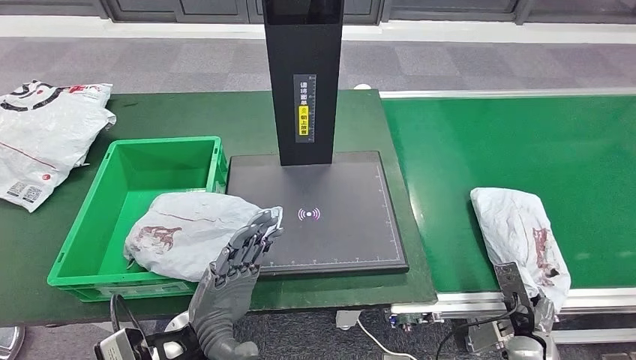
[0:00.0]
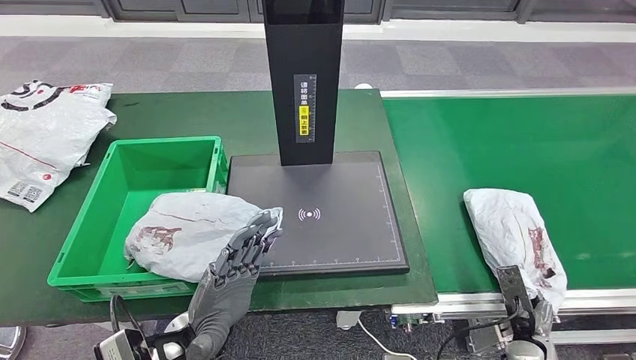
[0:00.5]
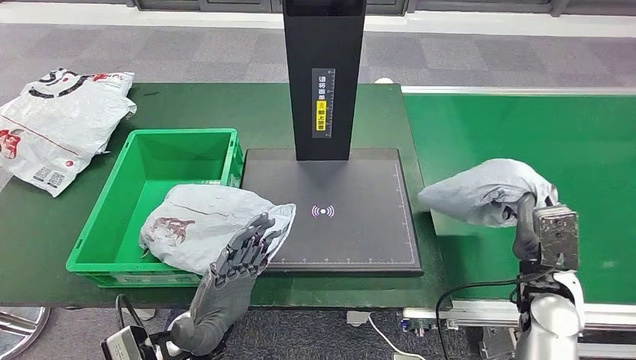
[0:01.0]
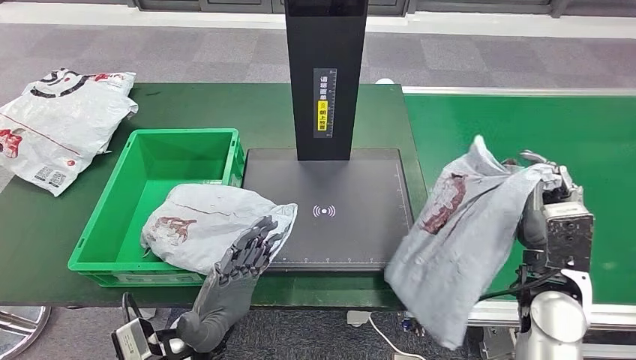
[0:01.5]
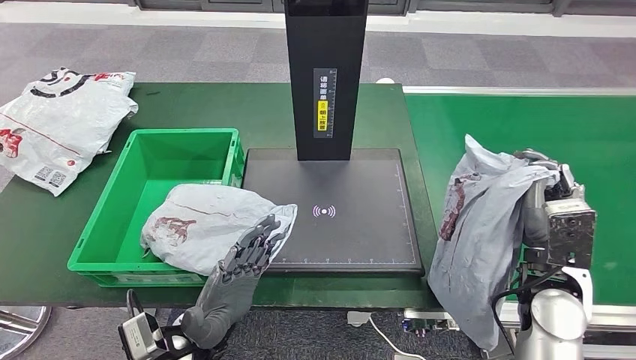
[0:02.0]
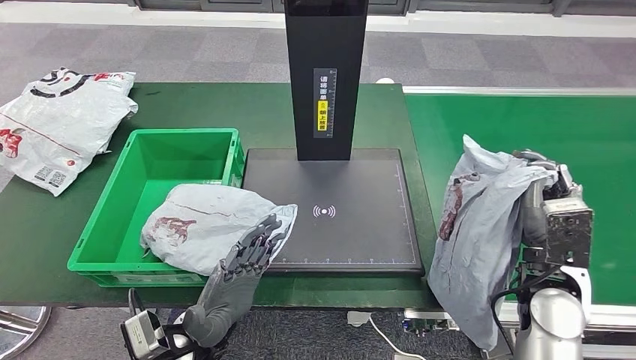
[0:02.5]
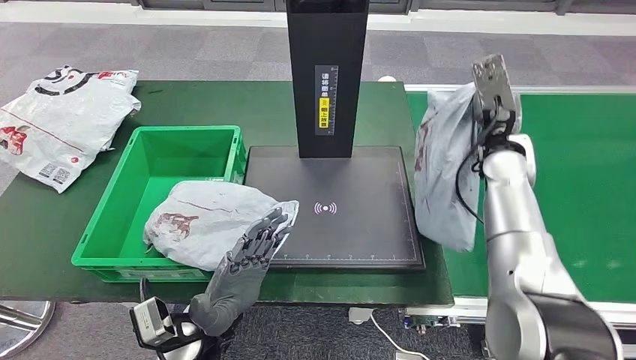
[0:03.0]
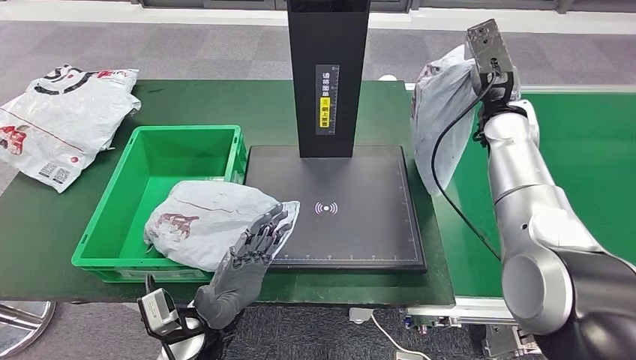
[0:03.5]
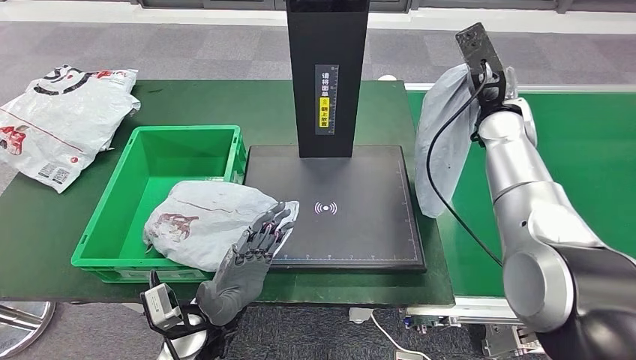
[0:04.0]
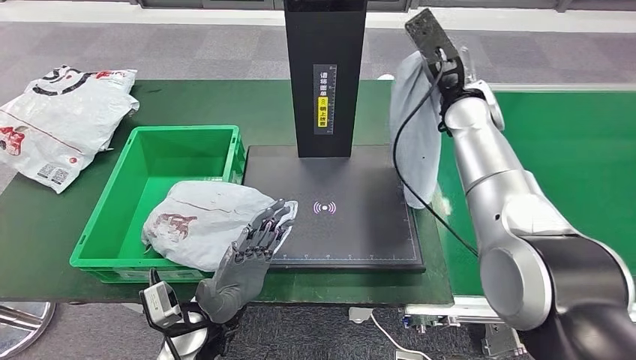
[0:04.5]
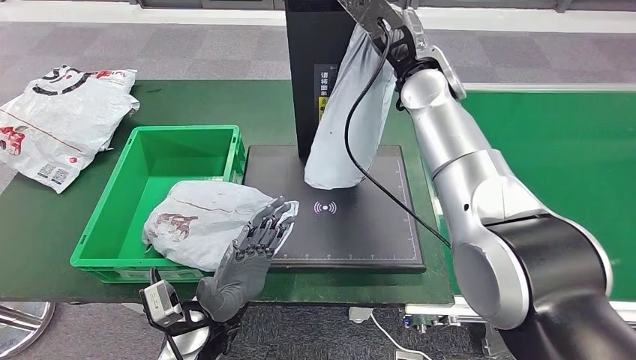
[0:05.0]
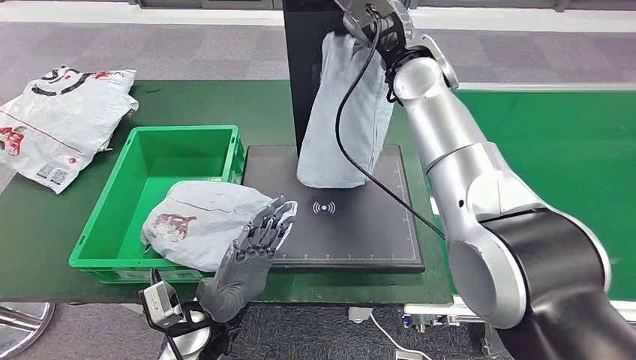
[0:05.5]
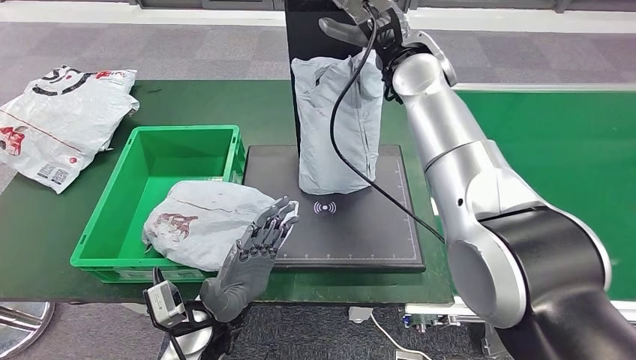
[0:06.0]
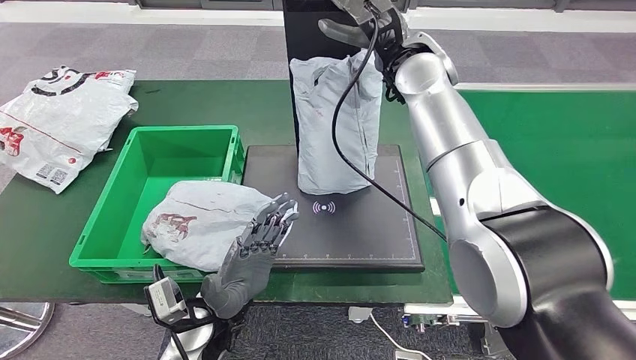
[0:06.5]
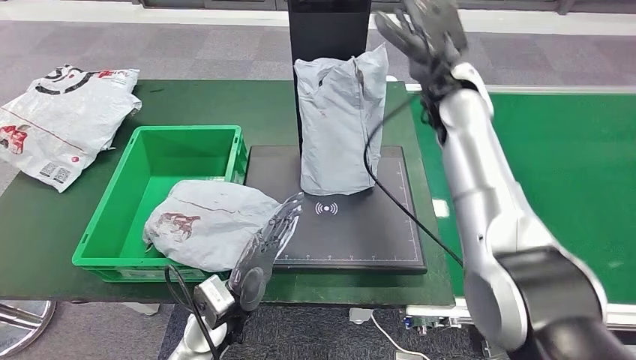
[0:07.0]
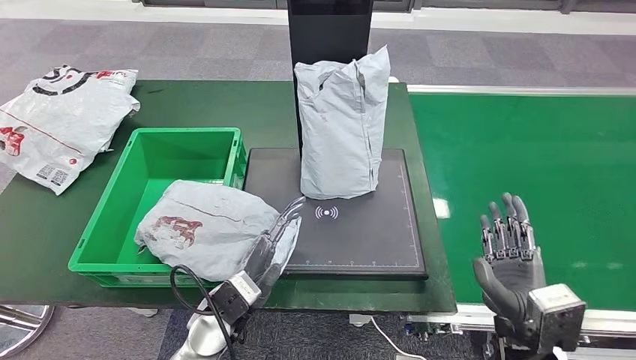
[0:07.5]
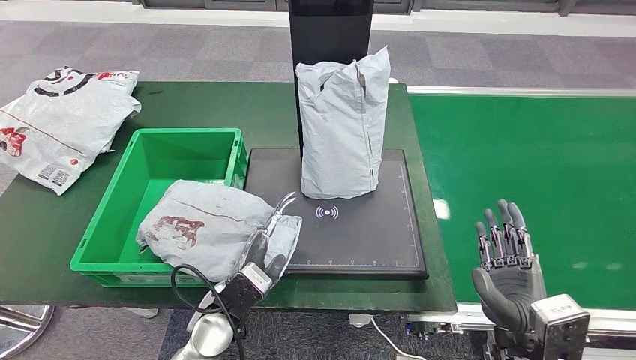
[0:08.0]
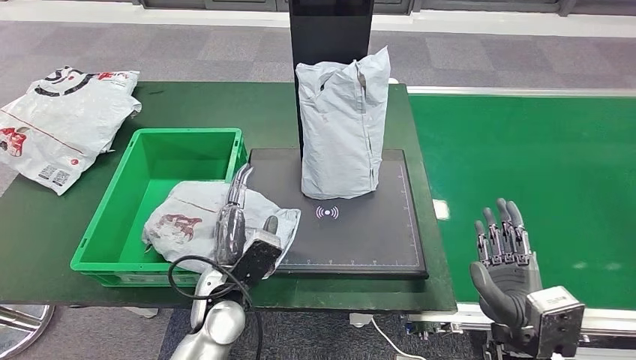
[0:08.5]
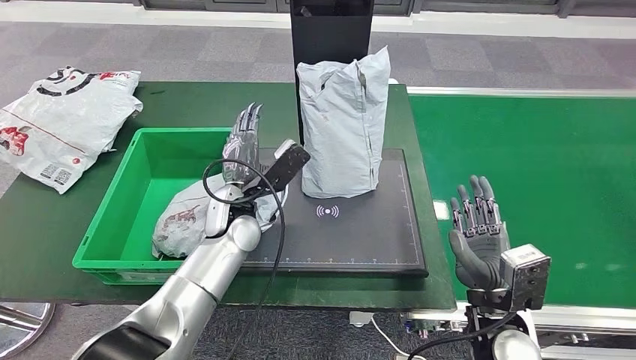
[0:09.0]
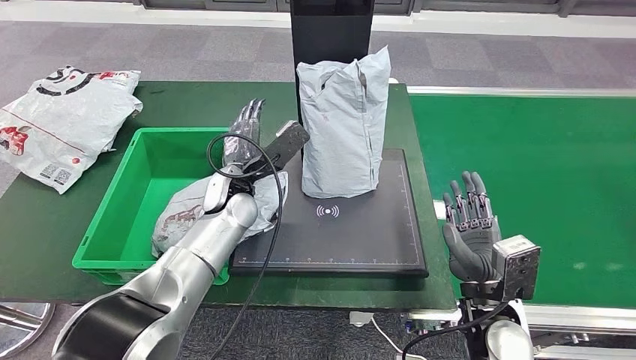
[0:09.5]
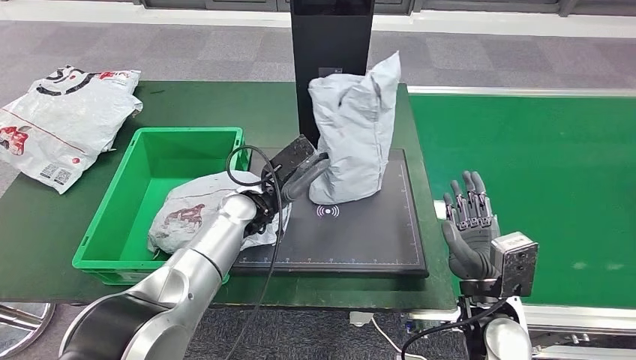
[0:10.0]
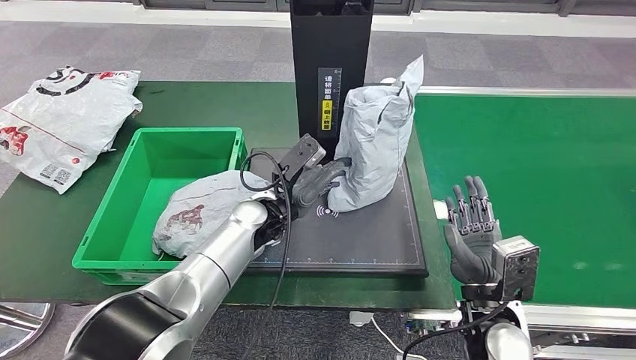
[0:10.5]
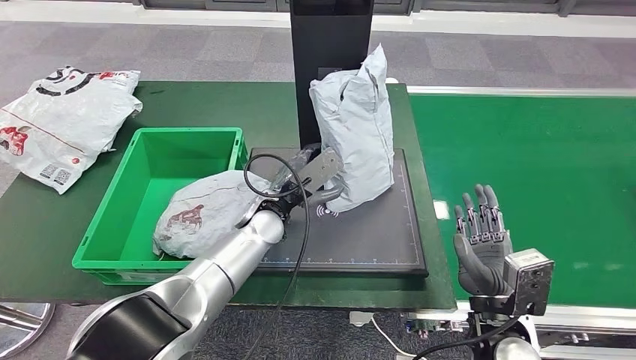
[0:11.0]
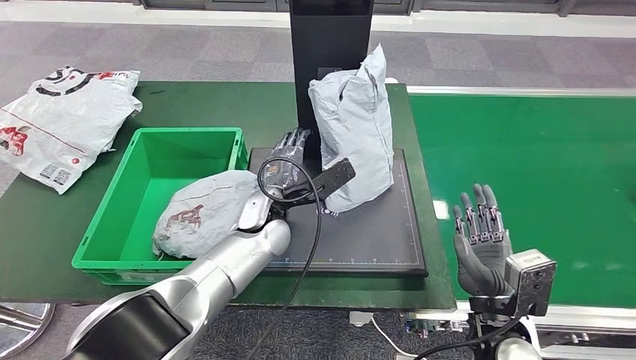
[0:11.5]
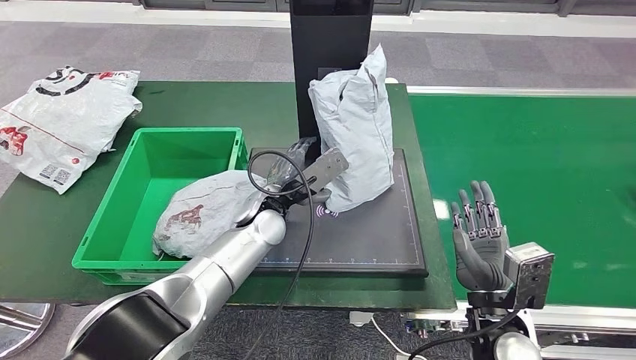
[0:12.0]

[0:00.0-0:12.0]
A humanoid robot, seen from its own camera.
Step, 0:02.0 to 0:07.5: Place the parcel onto the inbound machine.

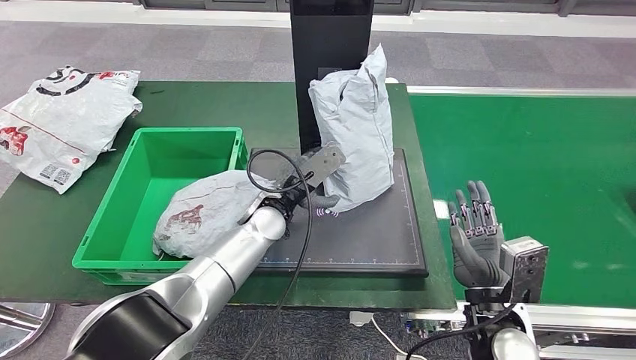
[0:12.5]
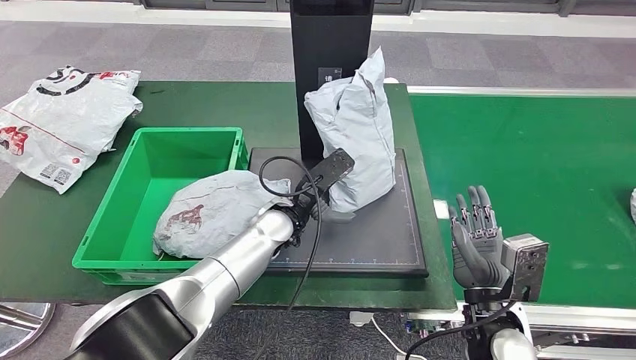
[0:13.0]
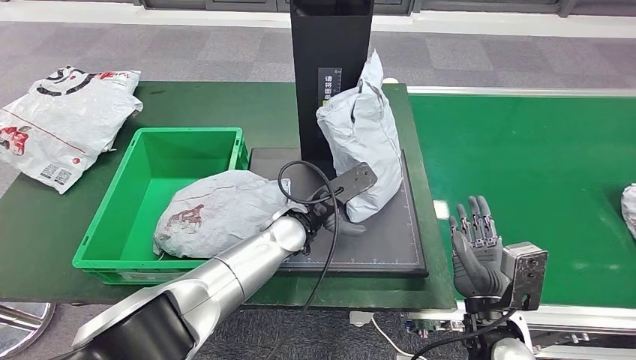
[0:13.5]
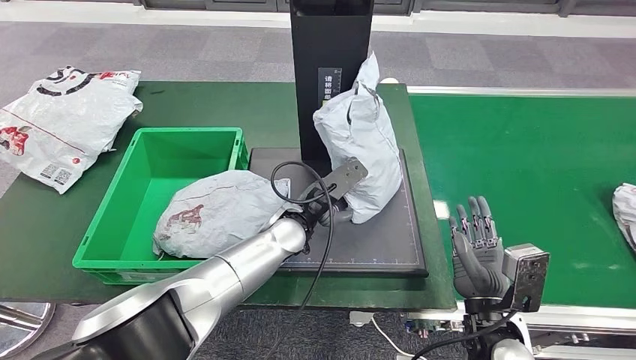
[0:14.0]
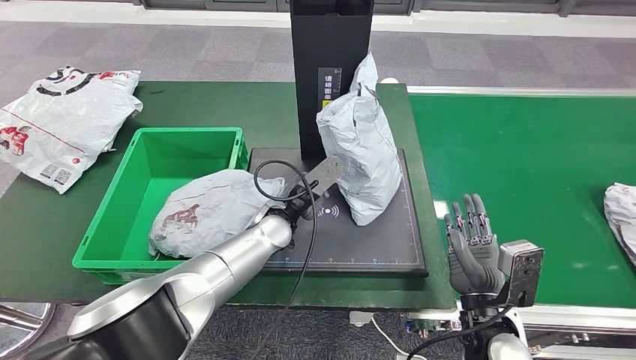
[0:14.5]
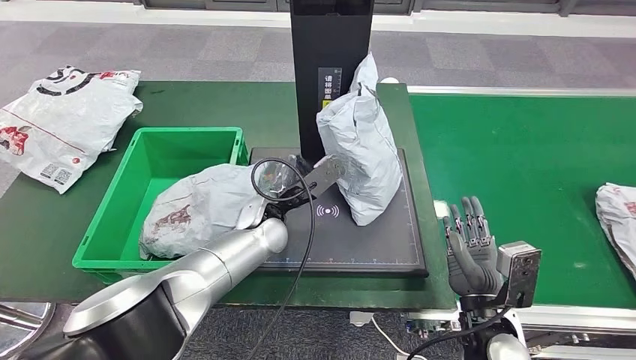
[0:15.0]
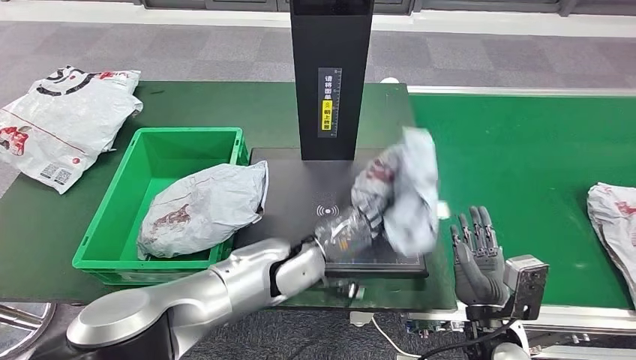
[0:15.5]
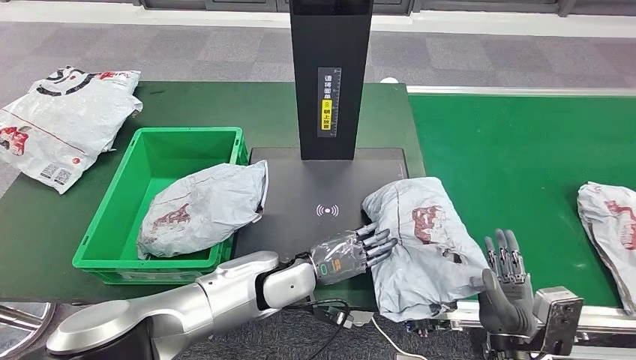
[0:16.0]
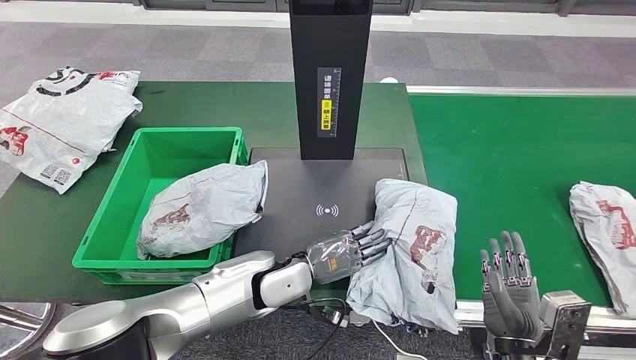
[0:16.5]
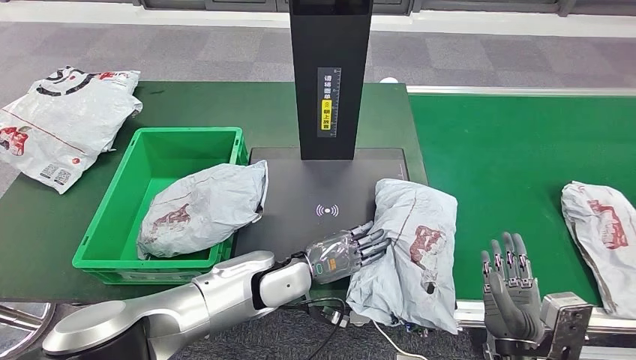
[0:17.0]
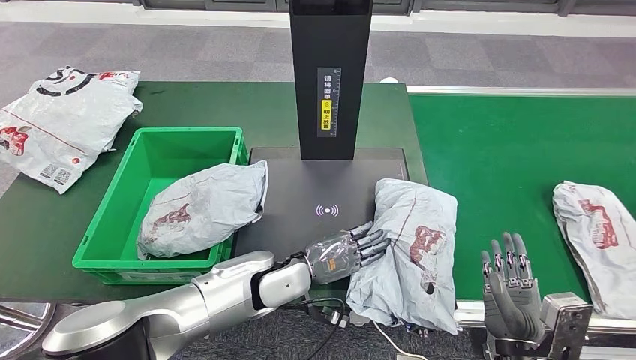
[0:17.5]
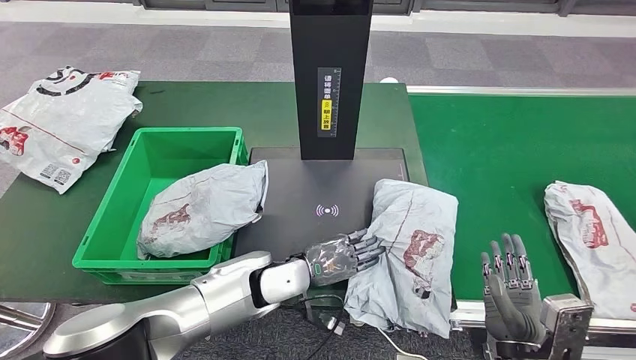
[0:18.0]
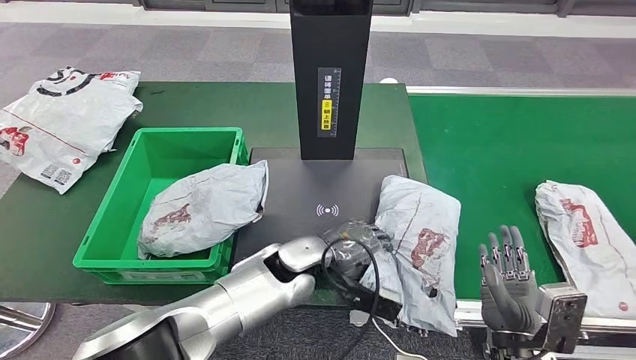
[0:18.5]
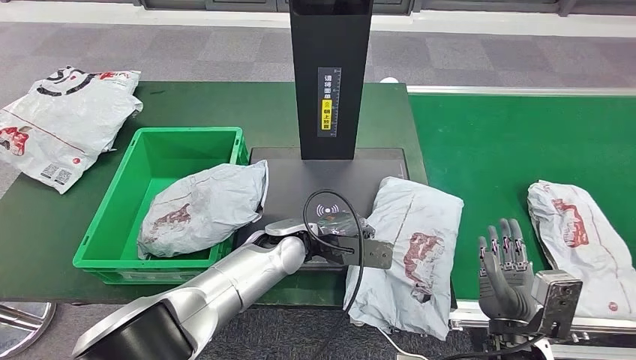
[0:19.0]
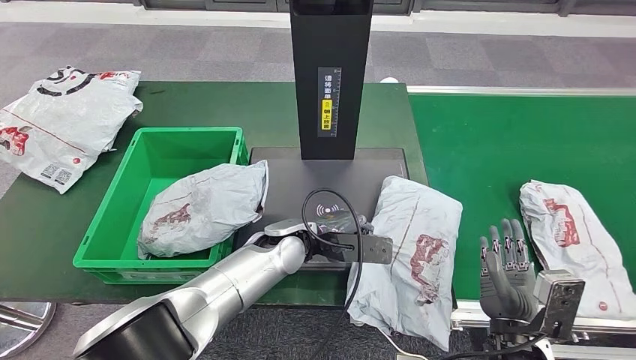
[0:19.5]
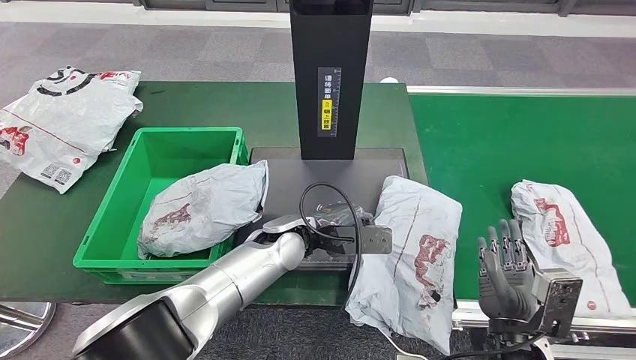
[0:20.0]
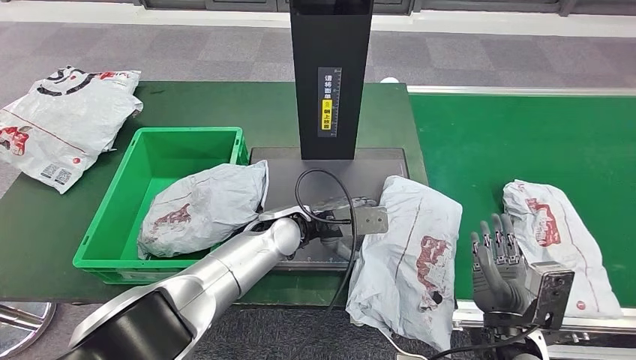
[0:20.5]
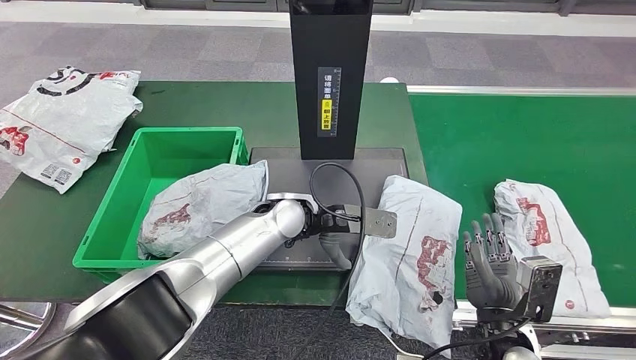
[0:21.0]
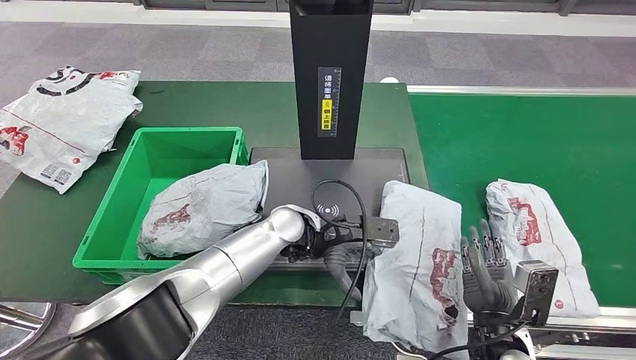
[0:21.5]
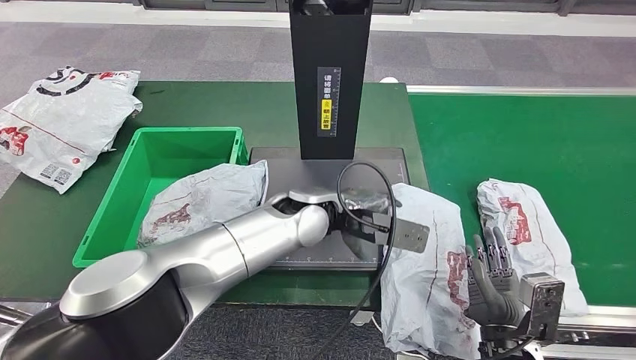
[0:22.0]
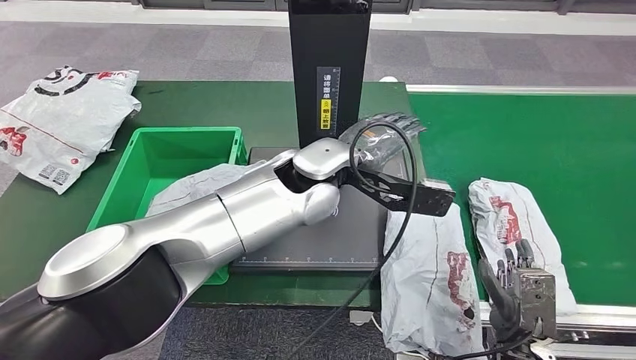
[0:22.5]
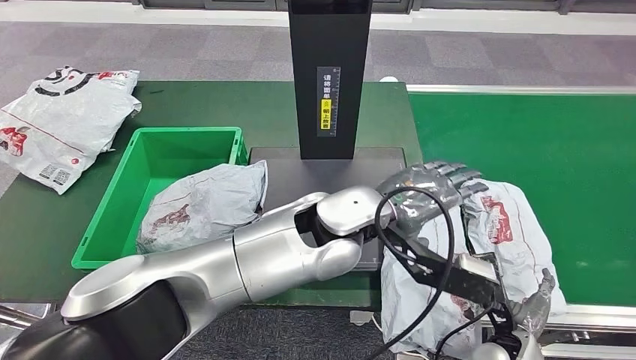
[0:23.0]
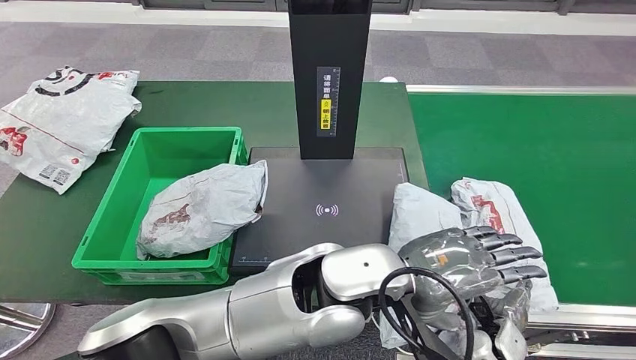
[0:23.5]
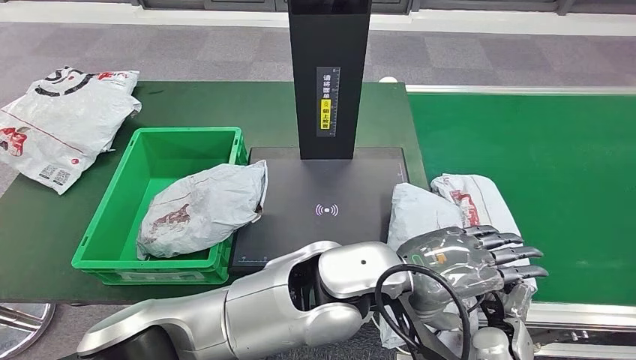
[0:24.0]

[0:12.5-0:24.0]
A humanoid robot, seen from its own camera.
0:12.5 to 0:14.5: The hands stay close to where they were, moving slightly.
